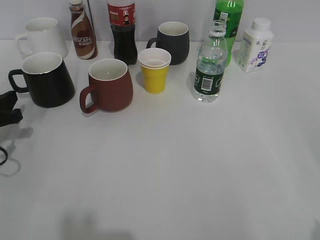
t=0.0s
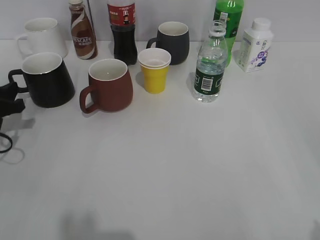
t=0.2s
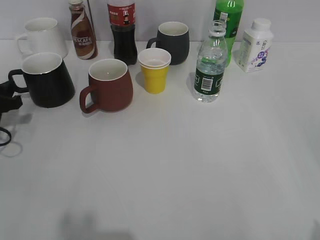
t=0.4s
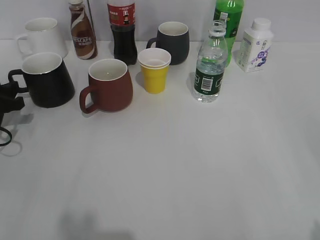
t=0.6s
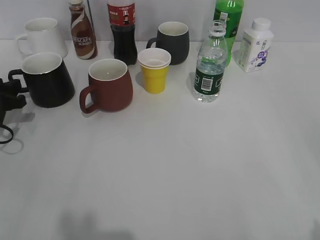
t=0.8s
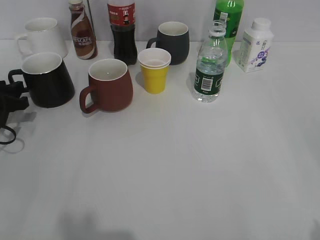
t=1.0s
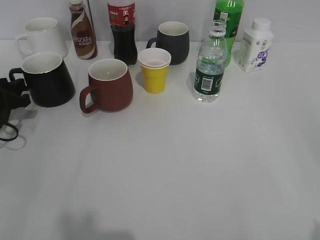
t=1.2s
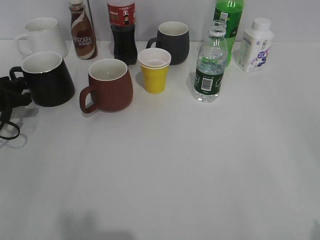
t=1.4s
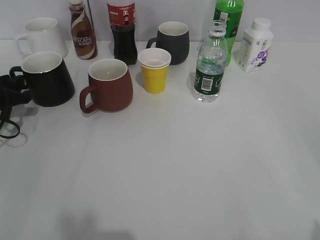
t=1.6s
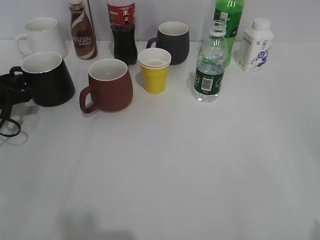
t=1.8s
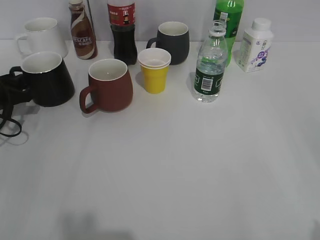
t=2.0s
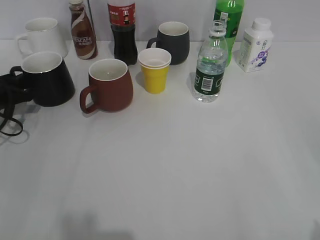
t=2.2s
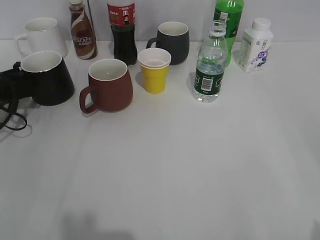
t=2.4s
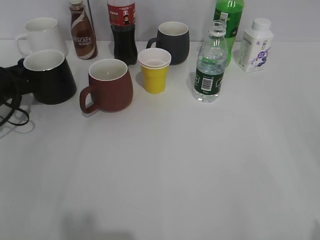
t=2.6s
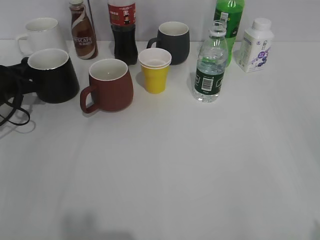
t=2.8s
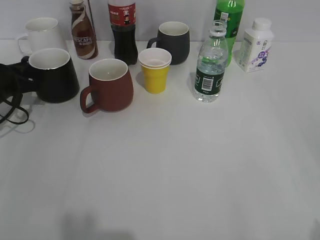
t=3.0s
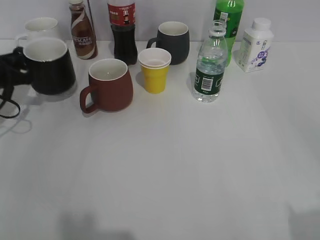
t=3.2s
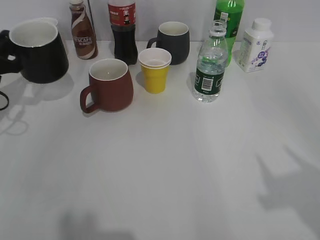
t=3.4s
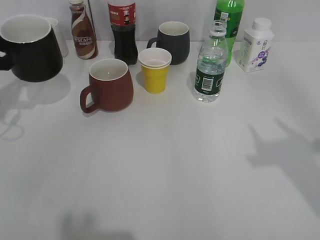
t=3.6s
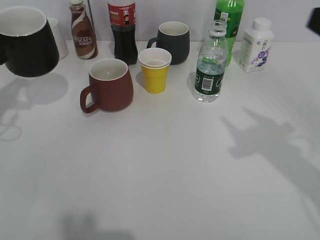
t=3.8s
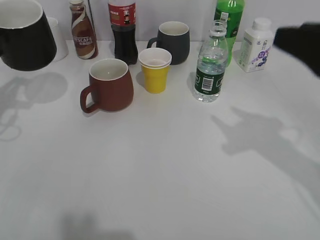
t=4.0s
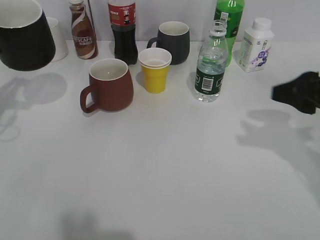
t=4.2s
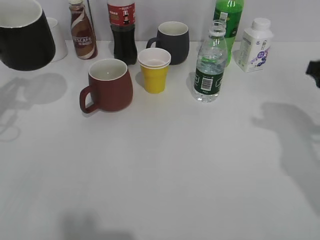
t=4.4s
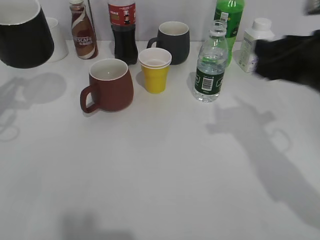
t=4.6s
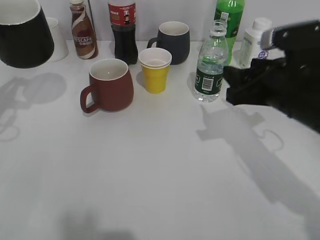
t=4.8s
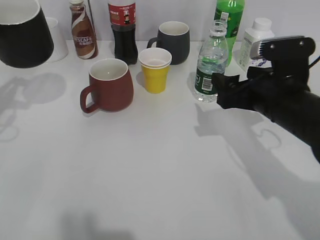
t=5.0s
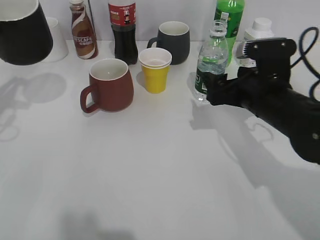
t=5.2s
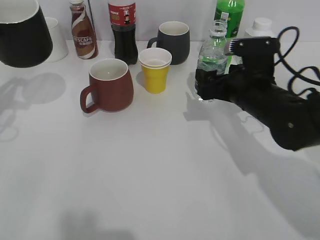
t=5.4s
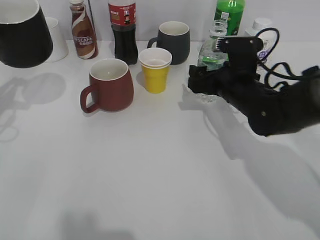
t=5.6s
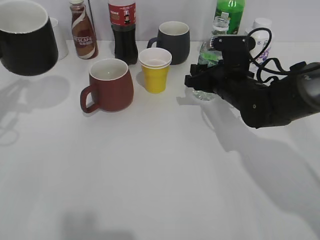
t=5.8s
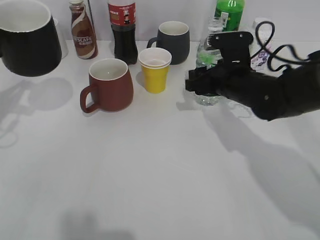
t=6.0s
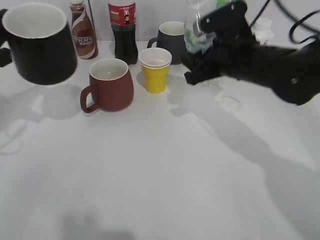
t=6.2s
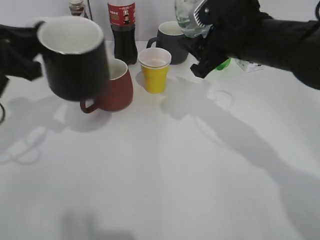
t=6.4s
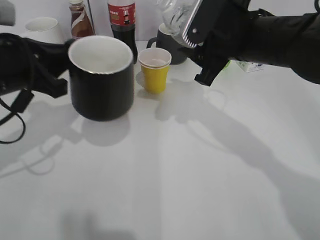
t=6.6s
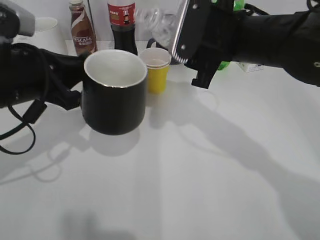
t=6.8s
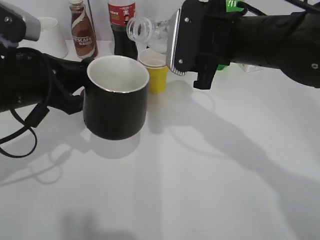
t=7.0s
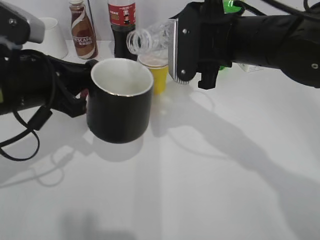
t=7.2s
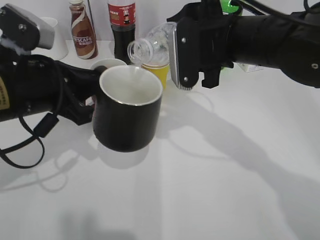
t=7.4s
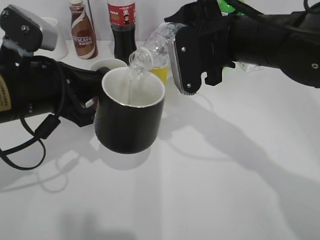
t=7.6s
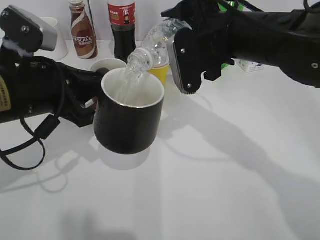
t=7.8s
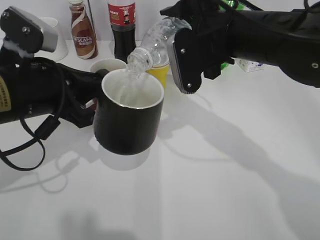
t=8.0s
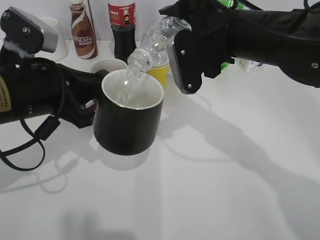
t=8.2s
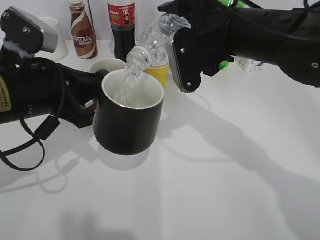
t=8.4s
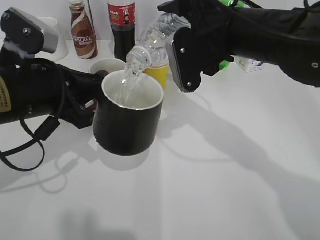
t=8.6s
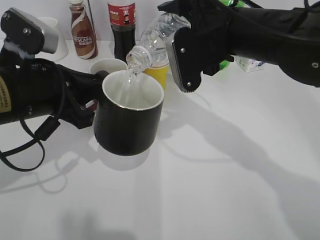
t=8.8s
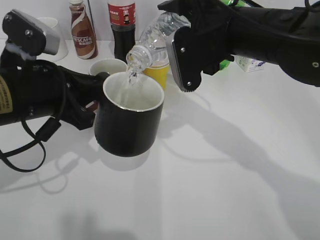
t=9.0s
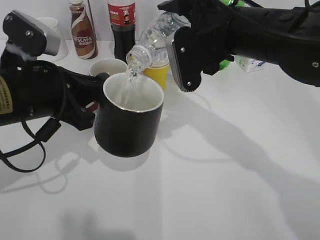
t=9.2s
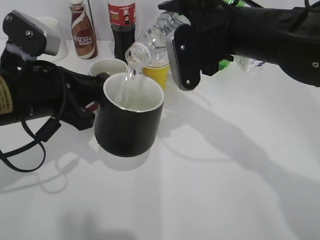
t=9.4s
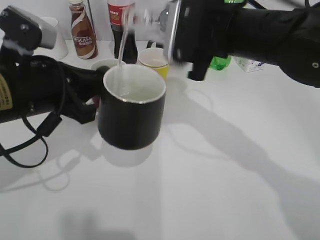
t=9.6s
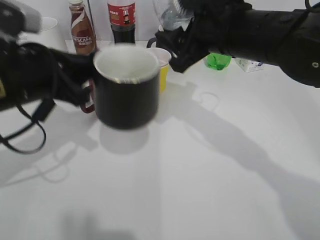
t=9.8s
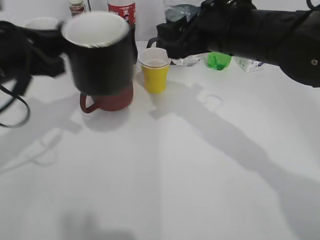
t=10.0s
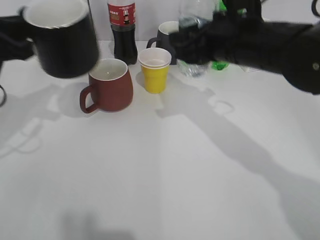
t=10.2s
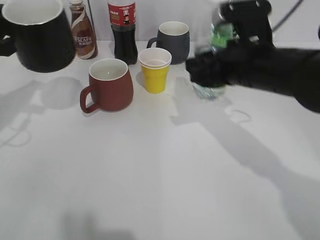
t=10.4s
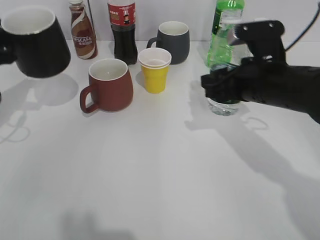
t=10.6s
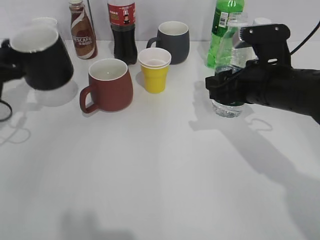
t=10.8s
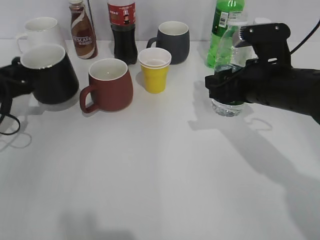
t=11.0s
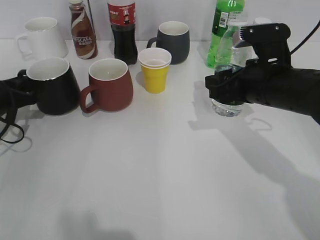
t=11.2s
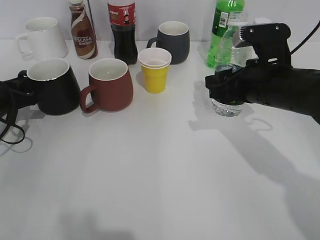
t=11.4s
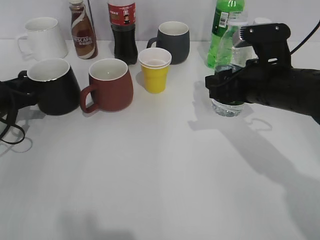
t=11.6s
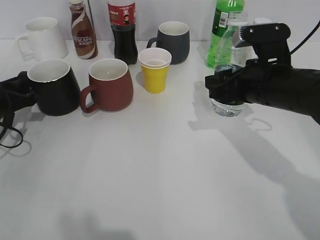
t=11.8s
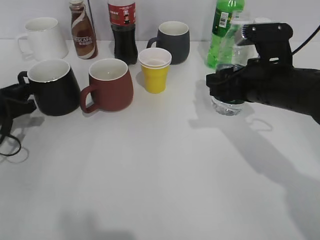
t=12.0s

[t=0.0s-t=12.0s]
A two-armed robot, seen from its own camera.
Step, t=0.0s to t=2.6s: Grasp the black cup with left gripper.
Step, t=3.0s to t=3.8s: Lift the black cup with left gripper.
Step, t=4.0s to t=5.8s: Grasp the bottle with water with right gripper.
Step, t=6.0s to t=9.6s: Pour the water from bottle to cup with right gripper.
Step, t=9.8s to t=11.8s: Place the black cup on the table with left gripper.
t=0.0s to t=1.6s: The left gripper travels forward by roughly 5 cm.
t=1.6s to t=3.0s: The grippers make only small movements.
t=3.0s to t=4.4s: The right gripper shifts about 25 cm forward. The left gripper shifts some 15 cm upward and backward.
t=4.4s to t=6.0s: The right gripper heads to the left, forward and downward, covering about 20 cm, and opens and closes again.
t=6.0s to t=7.6s: The right gripper goes some 15 cm upward and backward; the left gripper goes approximately 15 cm to the right and backward.
t=7.6s to t=9.0s: The grippers stay close to where they were, moving slightly.
t=9.0s to t=10.4s: The right gripper moves roughly 5 cm. Meanwhile the left gripper heads to the left and forward, covering about 10 cm.
t=10.4s to t=12.0s: The left gripper moves downward, some 15 cm.

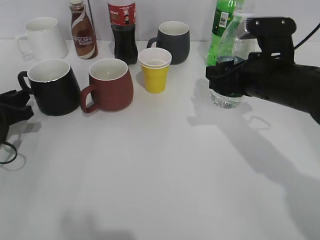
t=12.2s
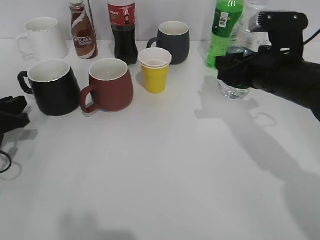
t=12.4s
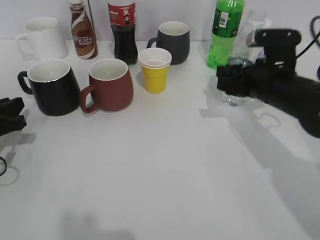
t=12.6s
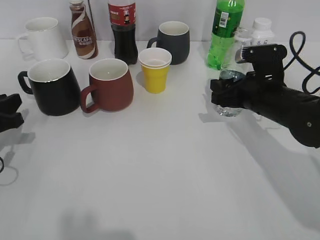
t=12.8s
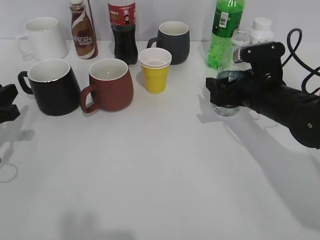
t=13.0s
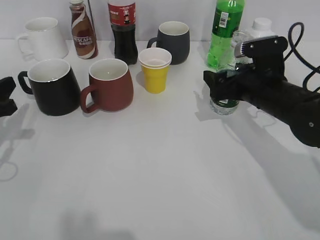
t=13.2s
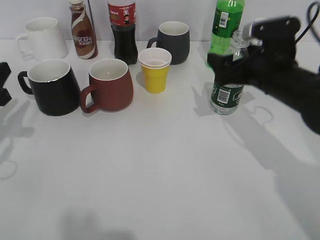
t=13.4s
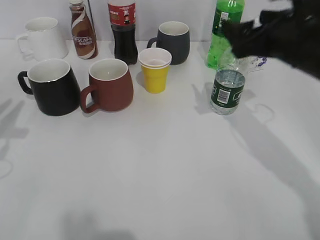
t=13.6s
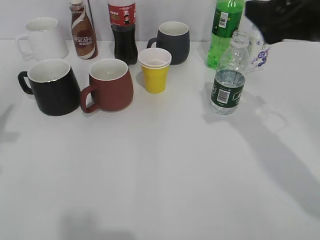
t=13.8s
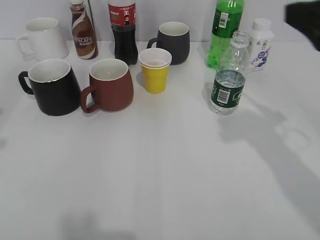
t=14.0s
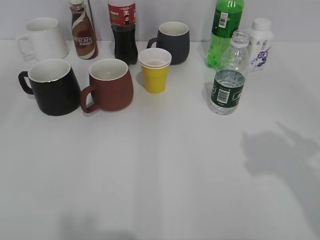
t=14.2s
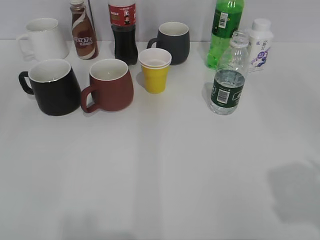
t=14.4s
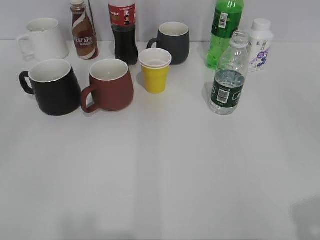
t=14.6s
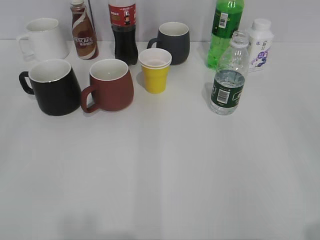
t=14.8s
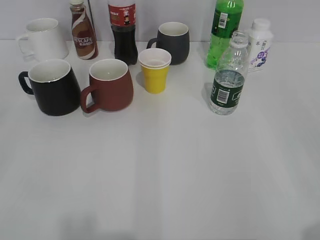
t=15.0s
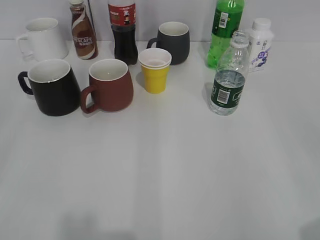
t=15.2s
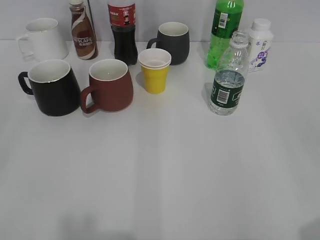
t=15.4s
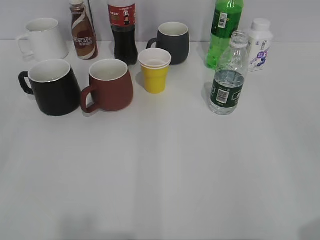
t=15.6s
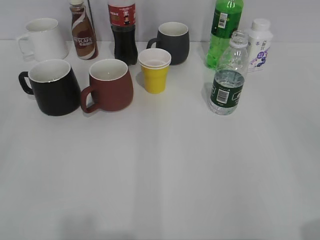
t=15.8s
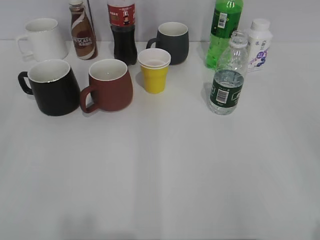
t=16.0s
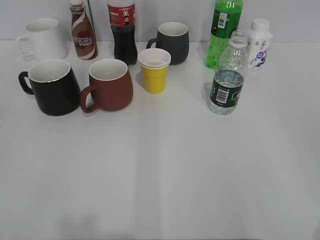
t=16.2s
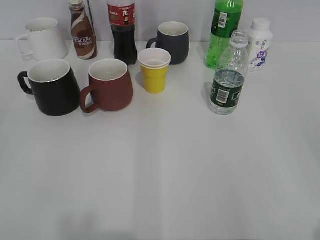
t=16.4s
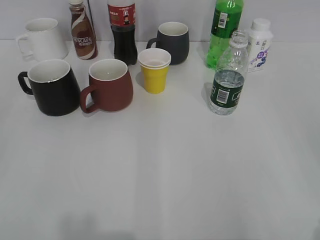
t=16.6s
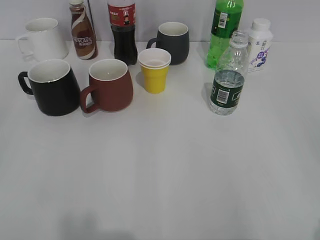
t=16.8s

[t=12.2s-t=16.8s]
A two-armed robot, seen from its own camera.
Step, t=12.2s to t=13.4s: Place the water bottle on the table with right gripper.
t=12.2s to t=13.8s: The left gripper moves upward and backward, roughly 20 cm. The right gripper is displaced upward by some 10 cm, and opens.
t=13.8s to t=15.2s: The grippers both shift backward by about 25 cm. The left gripper opens.

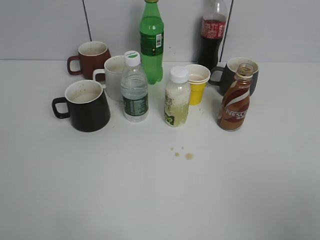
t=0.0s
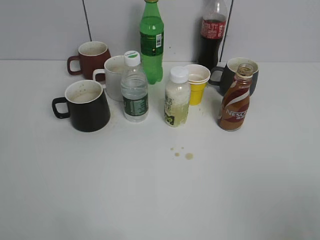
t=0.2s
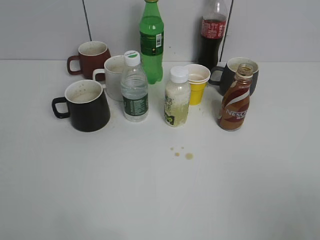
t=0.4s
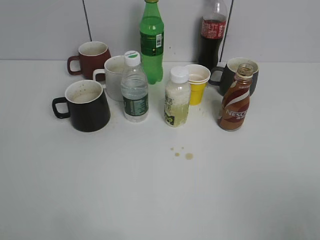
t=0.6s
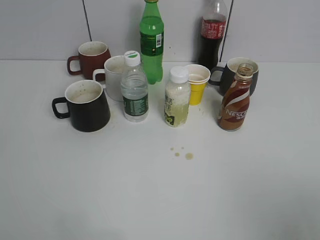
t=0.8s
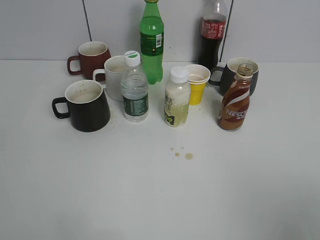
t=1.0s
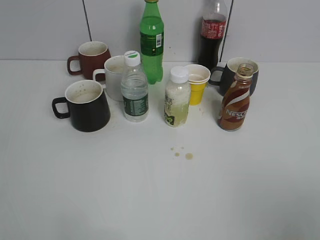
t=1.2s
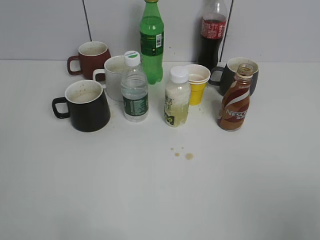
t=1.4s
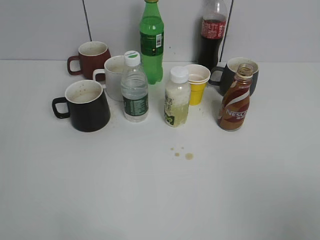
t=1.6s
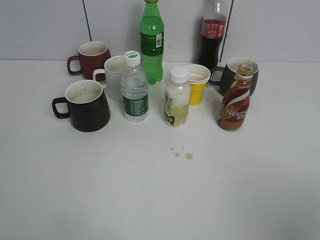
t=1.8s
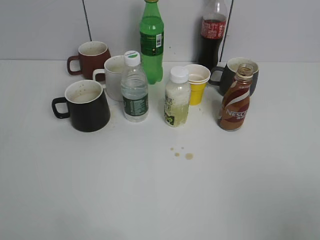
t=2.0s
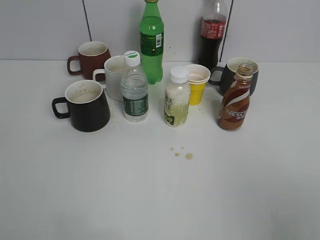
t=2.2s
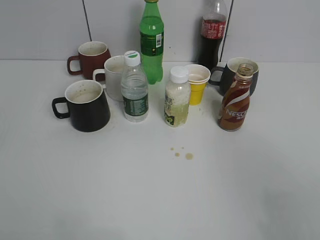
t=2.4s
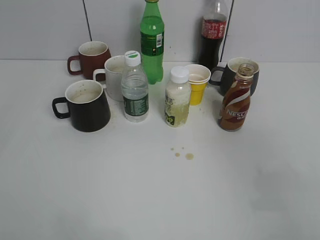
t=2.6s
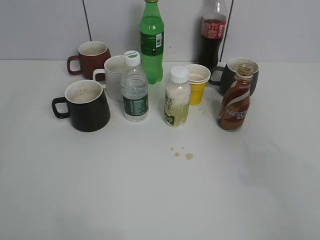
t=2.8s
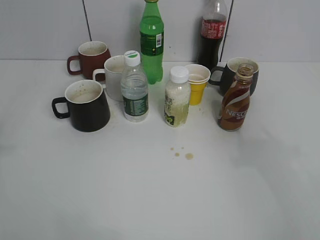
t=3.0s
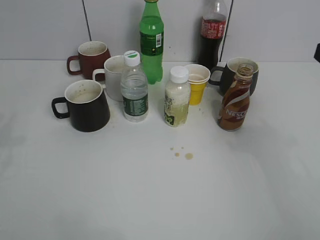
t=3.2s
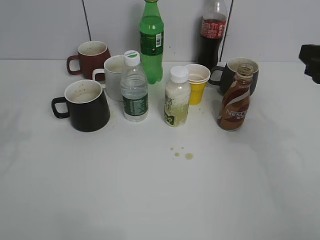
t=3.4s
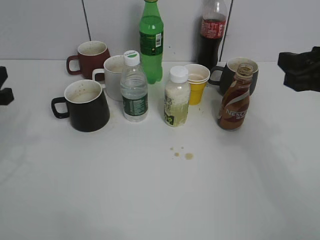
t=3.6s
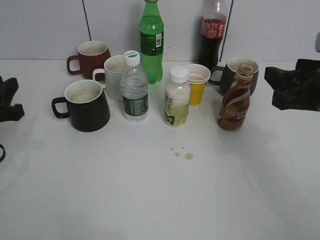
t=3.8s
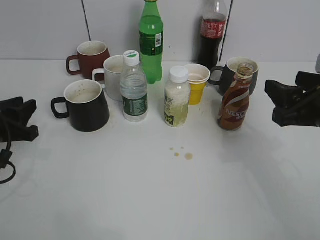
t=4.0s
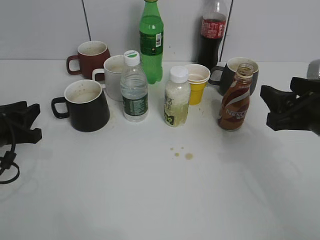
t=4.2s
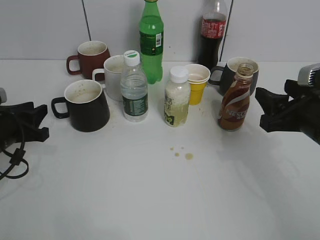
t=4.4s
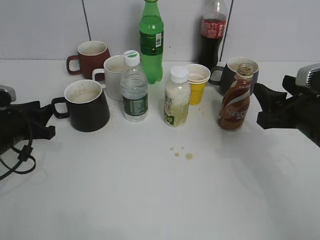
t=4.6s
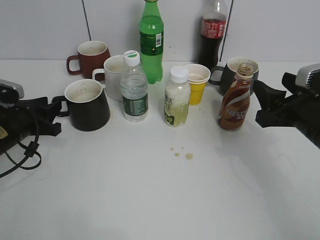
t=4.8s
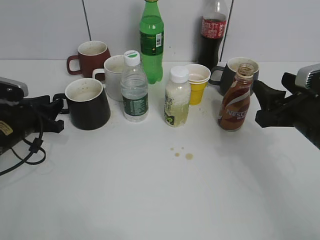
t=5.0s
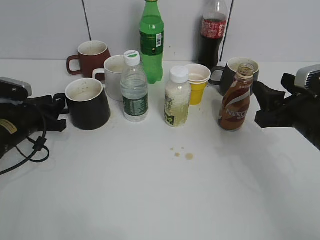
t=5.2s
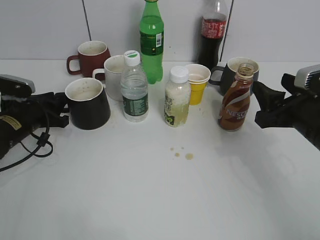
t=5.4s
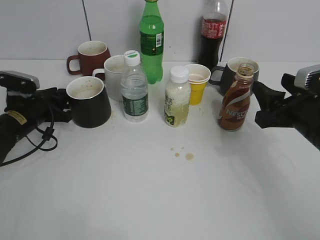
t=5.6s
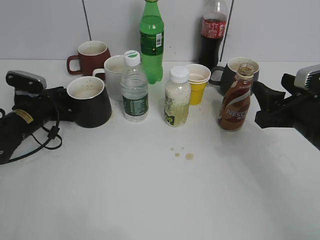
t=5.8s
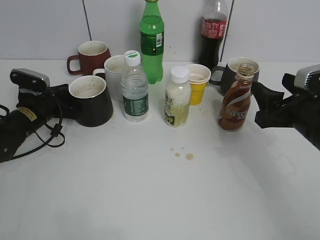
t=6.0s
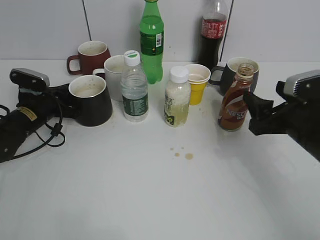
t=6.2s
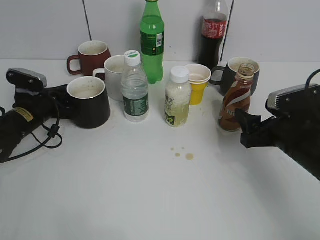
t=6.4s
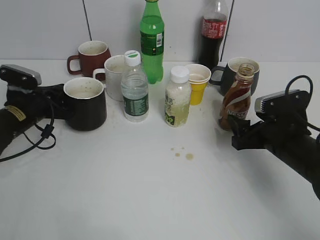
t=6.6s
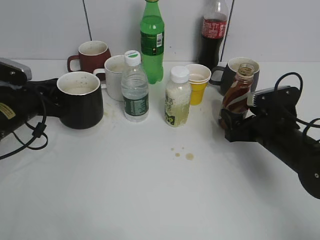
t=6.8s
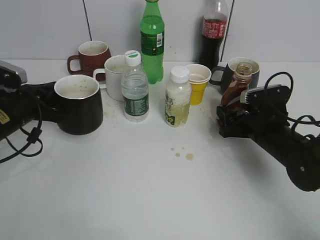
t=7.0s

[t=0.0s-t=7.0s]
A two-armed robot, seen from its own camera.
Step, t=2.0s to t=6.0s: Grasp the black cup with left gripper.
t=1.4s to t=2.8s: The right gripper travels forward by some 10 cm, and closes.
t=2.8s to t=4.2s: Both grippers travel together downward and forward, roughly 20 cm.
t=4.2s to t=5.6s: The left gripper heads forward, covering some 10 cm.
t=5.6s to t=7.0s: The right gripper shifts roughly 10 cm downward and forward, and opens up, while the left gripper shifts by approximately 5 cm, and closes its fingers.
